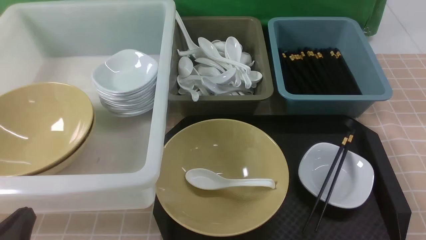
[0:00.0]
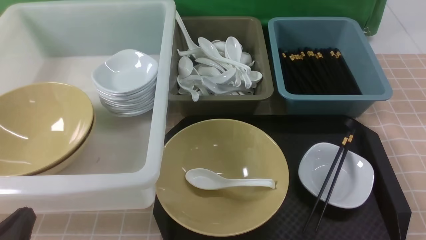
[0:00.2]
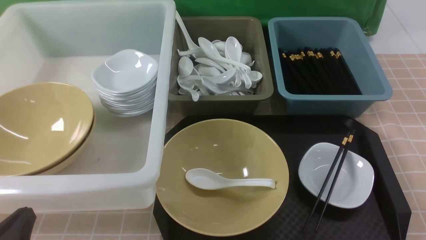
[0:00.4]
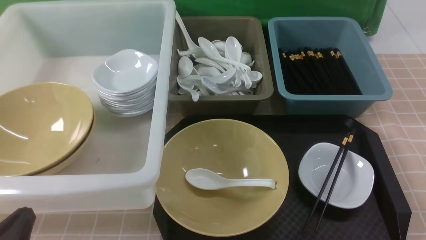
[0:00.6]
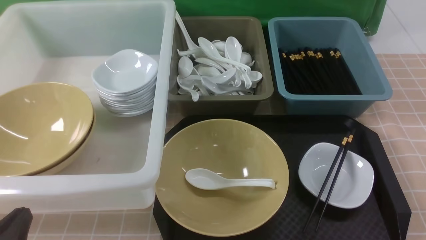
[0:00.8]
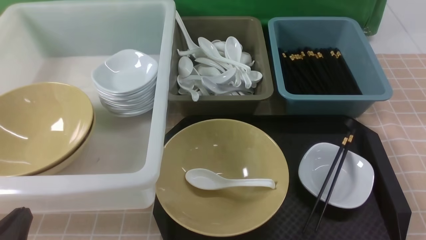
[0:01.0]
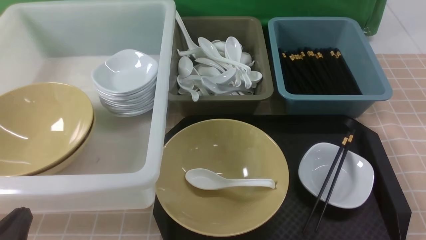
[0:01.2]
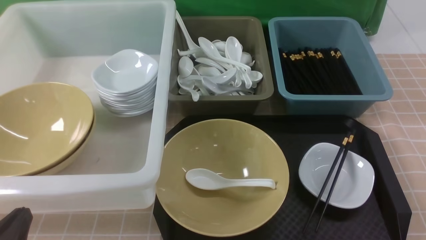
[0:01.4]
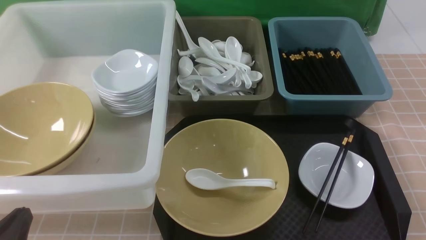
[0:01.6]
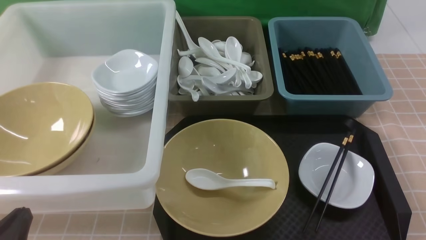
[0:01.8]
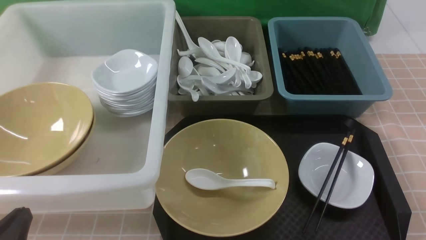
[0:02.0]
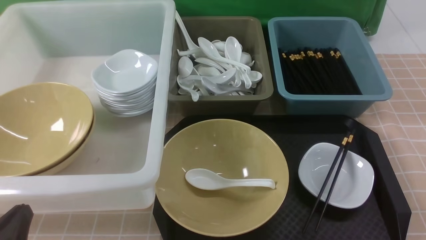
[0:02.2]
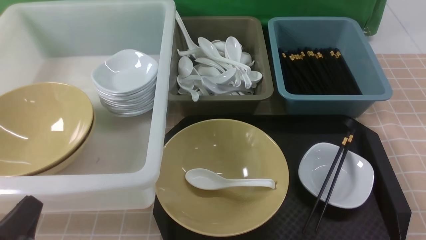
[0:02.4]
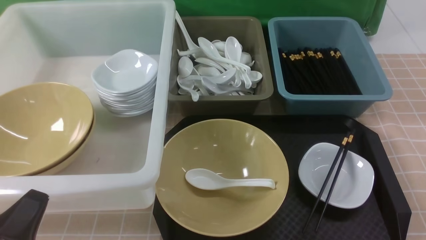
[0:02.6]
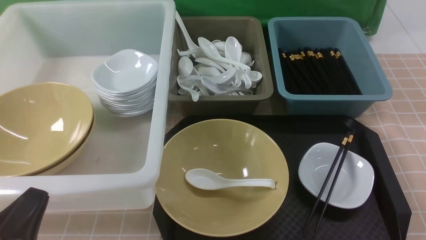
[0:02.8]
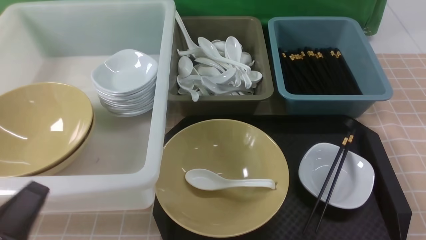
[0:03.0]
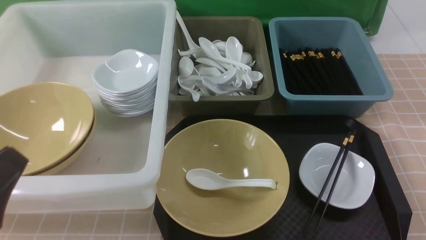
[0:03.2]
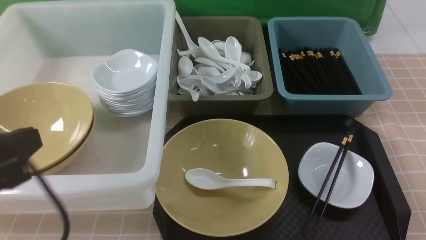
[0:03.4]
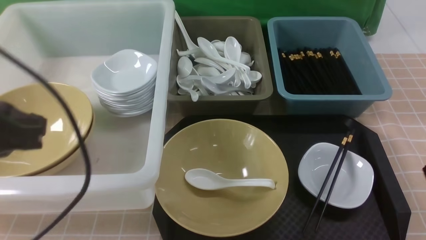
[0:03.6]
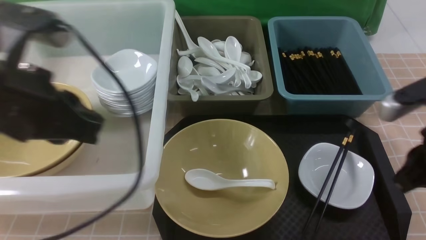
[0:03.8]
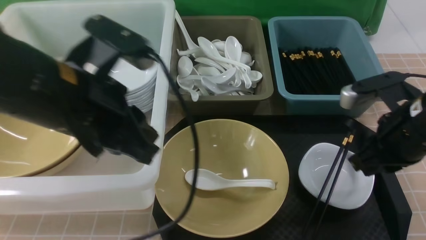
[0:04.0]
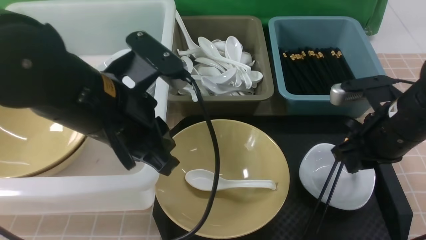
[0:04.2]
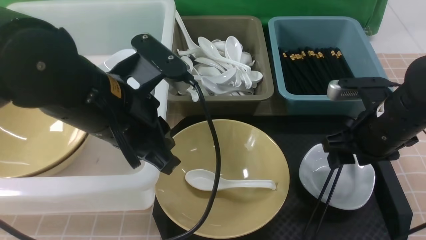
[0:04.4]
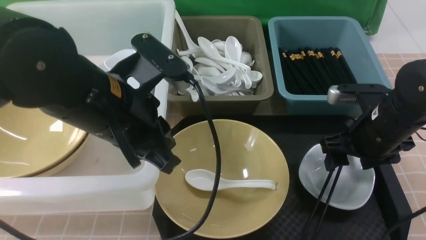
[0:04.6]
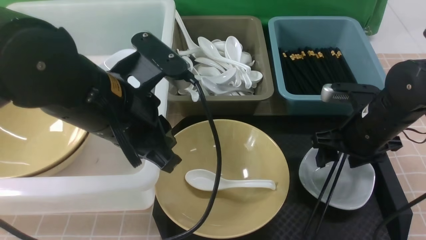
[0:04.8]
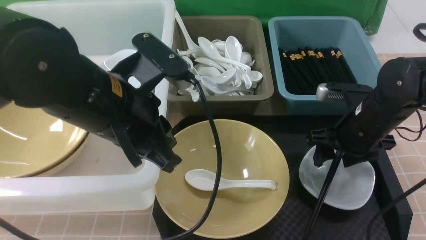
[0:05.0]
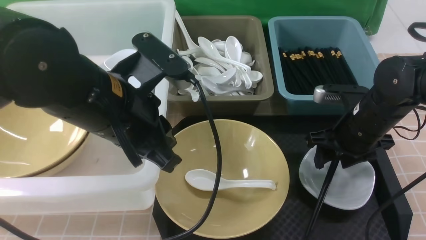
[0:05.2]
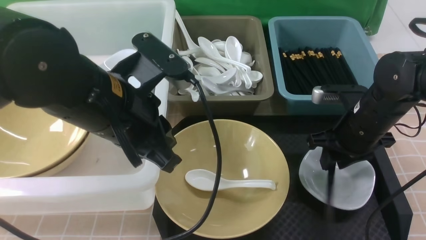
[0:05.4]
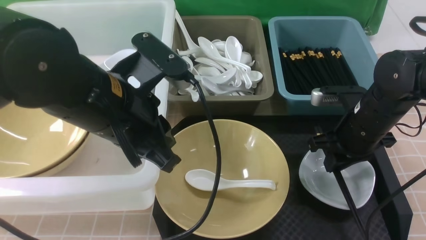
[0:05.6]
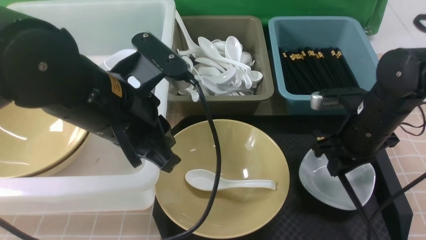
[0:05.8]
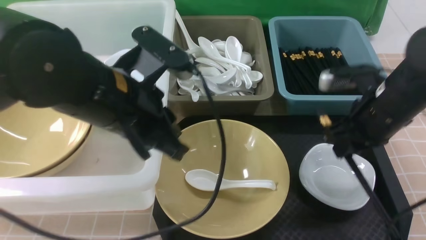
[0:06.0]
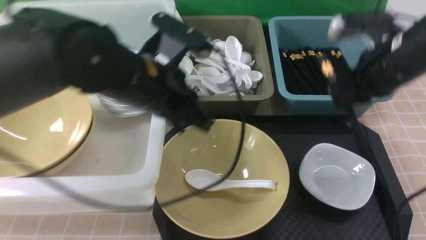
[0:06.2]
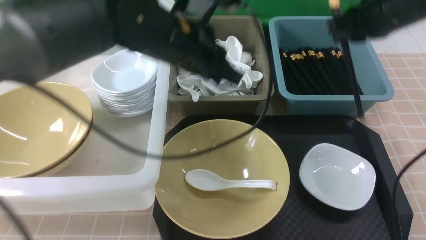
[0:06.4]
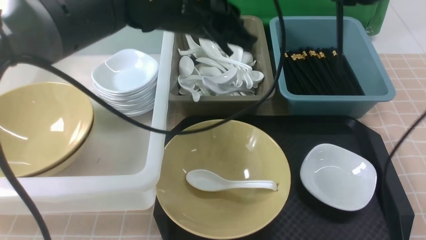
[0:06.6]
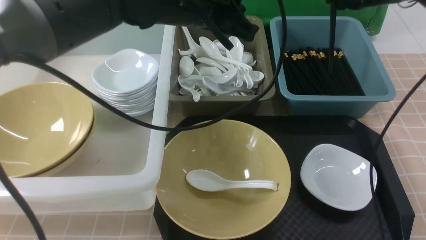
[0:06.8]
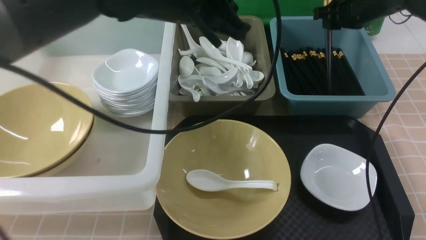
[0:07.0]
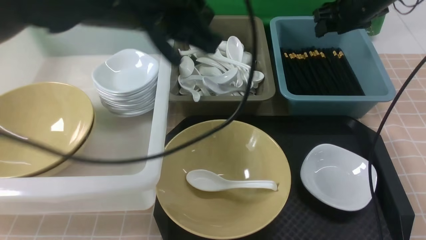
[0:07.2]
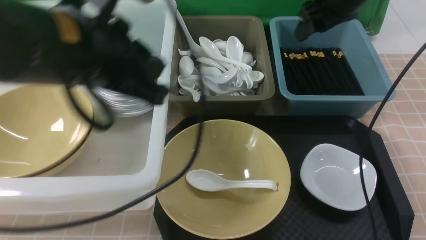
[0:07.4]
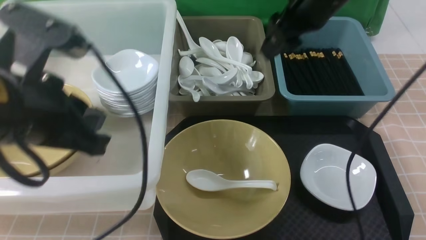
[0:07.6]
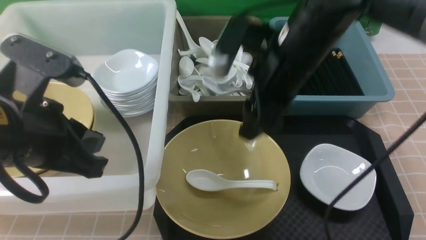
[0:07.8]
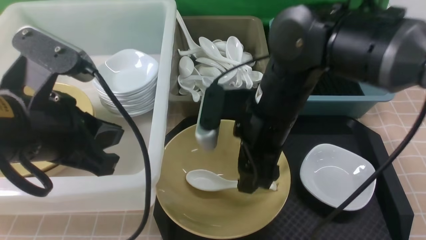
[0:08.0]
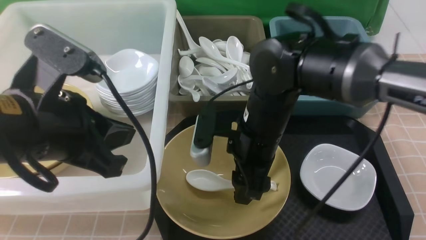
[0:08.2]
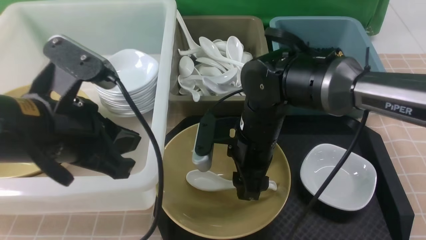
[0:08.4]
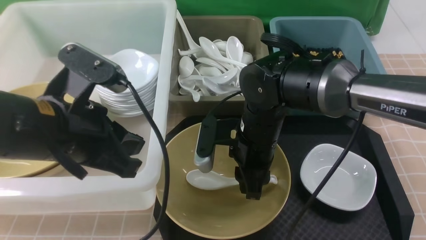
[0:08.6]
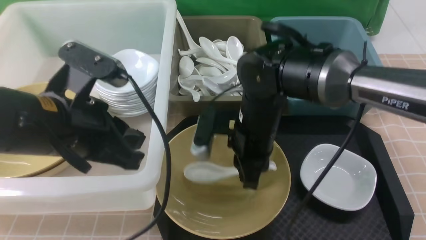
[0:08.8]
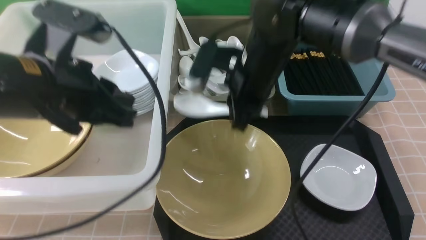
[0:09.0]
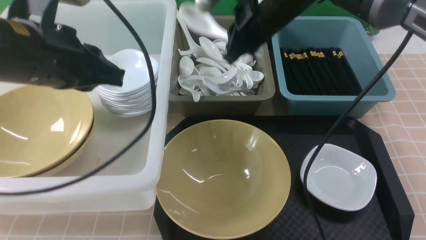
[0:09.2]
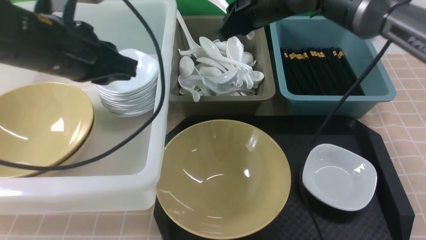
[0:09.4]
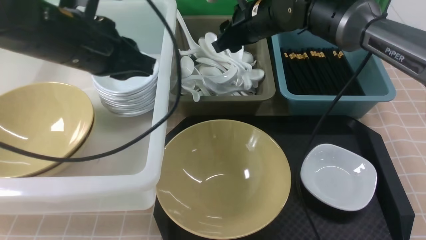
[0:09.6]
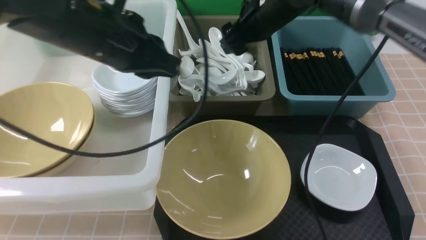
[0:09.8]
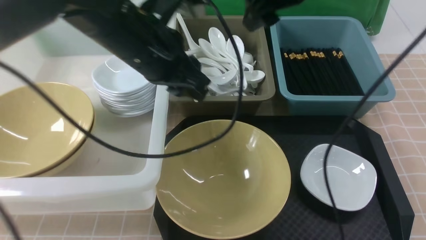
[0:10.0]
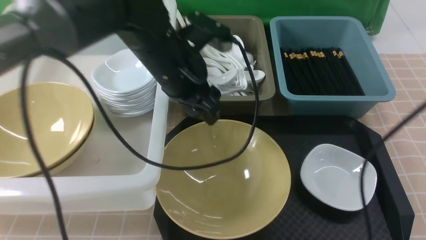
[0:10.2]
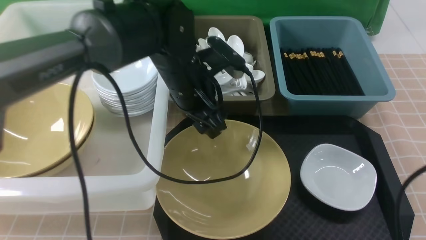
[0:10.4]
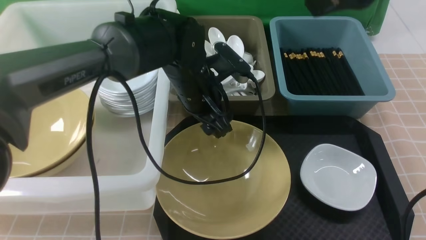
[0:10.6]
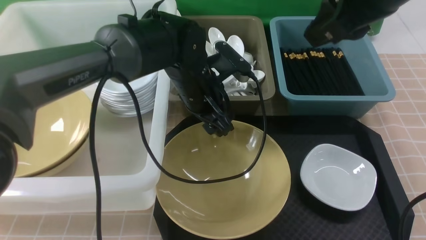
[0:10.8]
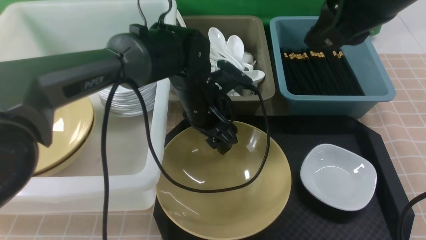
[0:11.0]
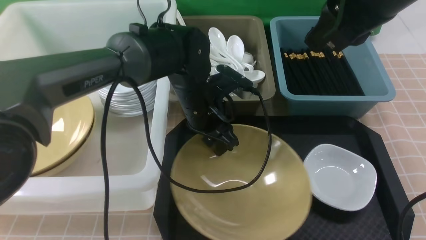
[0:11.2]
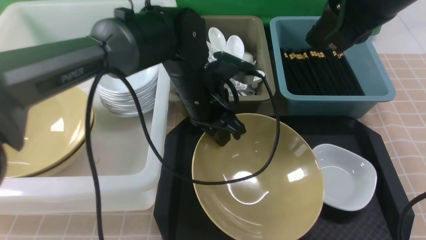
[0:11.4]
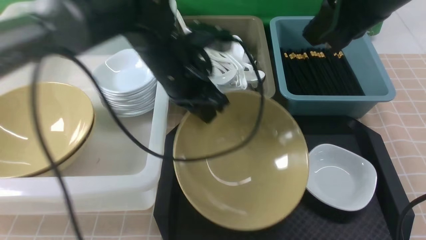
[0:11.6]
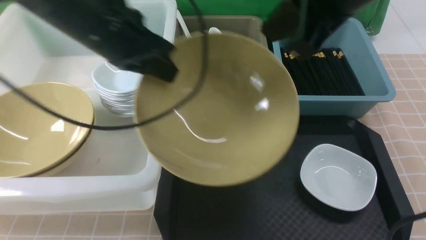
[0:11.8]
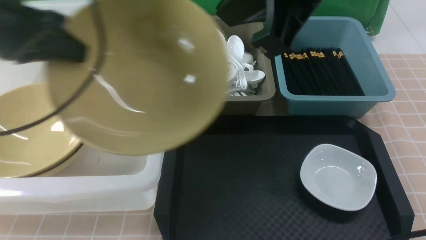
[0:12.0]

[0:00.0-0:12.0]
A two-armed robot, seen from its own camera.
Task of the whole recording: on brown table put chopsticks spoon bowls plates into blue grey white boxes.
Step, 0.0 to 6.2 s: use the right arm to grab the chopsticks.
Step, 6.4 to 7.4 s: use the right arm to put the chopsticks into the small storage box on the right.
Step, 7.6 to 8.8 s: use the right arm to grab the soup spoon in the middle.
Step, 9.0 to 9.8 s: use the right arm to put the soup spoon into the small storage box in the middle.
Step, 10.0 to 11.6 s: use the left arm to grab the yellow noodle bowl on the left.
0.0 to 1.6 s: Both grippers stay put.
1.6 to 3.0 s: The left gripper travels upward by approximately 5 cm.
3.0 to 4.4 s: The right gripper goes some 25 cm forward, and opens; the left gripper is displaced forward, to the right and upward by approximately 20 cm.
4.4 to 6.0 s: The right gripper closes.
6.0 to 7.6 s: The left gripper heads to the left and backward, covering some 10 cm; the right gripper shifts about 15 cm to the left and upward, moves some 20 cm forward and comes back, and opens.
7.6 to 9.0 s: The right gripper travels to the left and downward by approximately 10 cm, and closes its fingers.
9.0 to 10.4 s: The left gripper is displaced to the right, forward and downward by some 20 cm, and opens up. The right gripper moves upward and to the right, approximately 20 cm, and opens.
10.4 to 12.0 s: The left gripper goes about 25 cm to the left and upward, and closes. The right gripper heads to the left and backward, covering about 10 cm, and closes up.

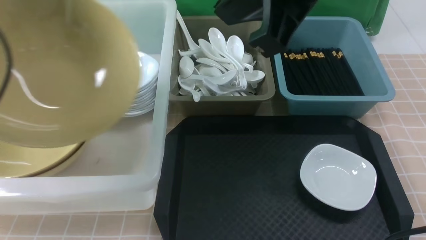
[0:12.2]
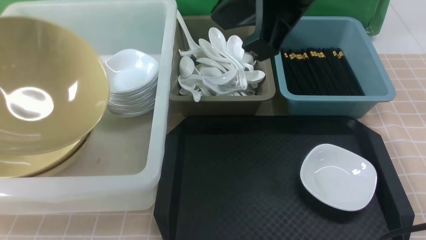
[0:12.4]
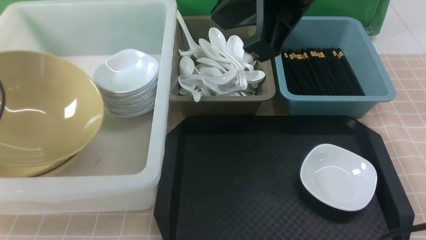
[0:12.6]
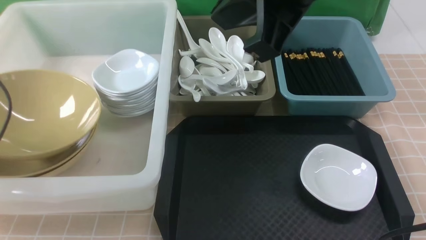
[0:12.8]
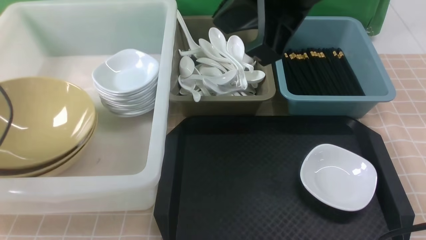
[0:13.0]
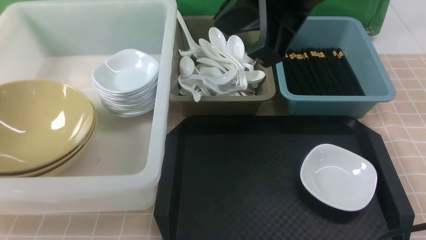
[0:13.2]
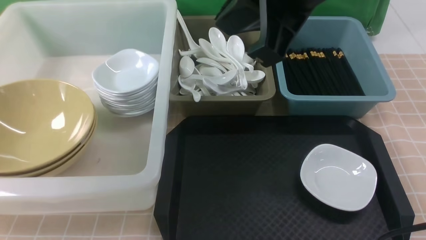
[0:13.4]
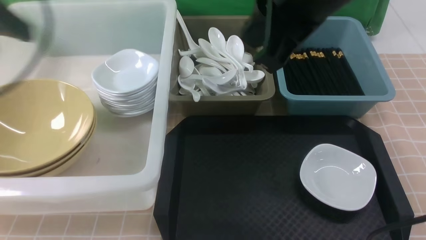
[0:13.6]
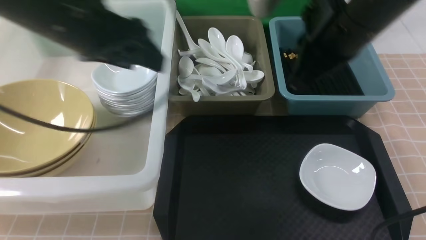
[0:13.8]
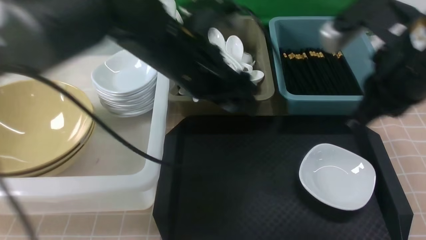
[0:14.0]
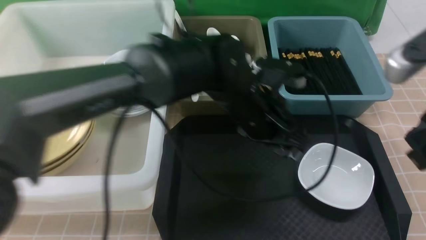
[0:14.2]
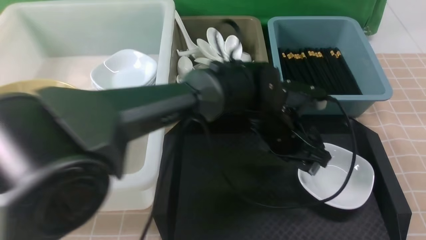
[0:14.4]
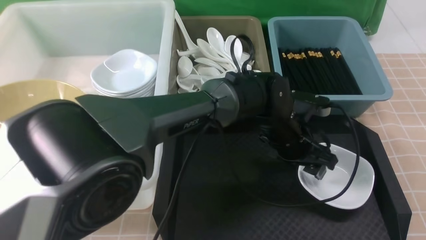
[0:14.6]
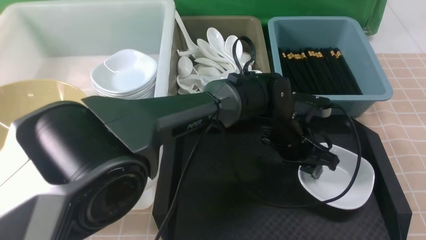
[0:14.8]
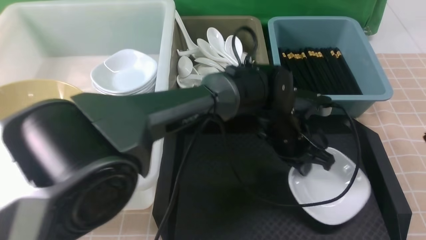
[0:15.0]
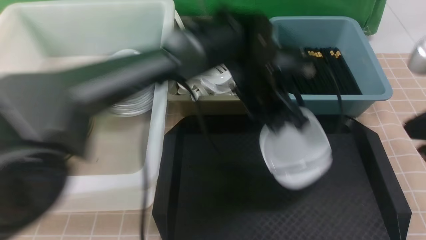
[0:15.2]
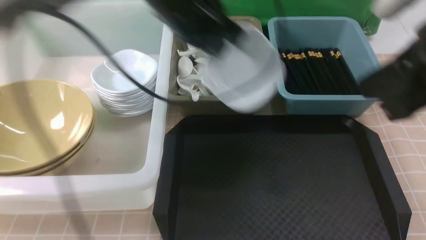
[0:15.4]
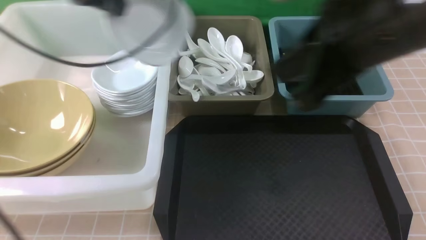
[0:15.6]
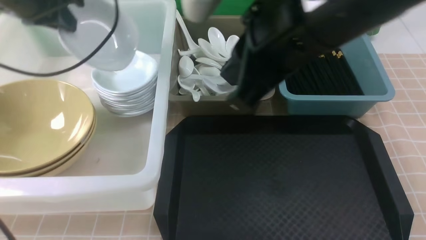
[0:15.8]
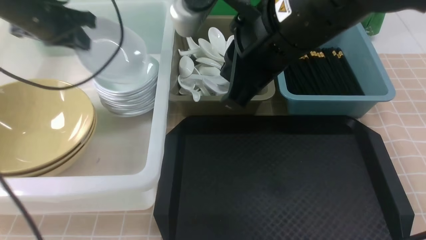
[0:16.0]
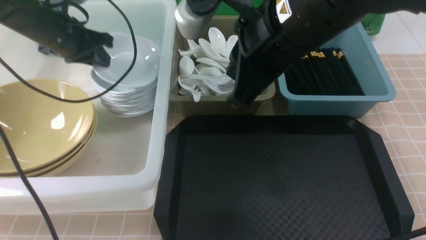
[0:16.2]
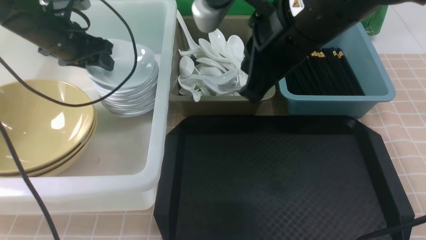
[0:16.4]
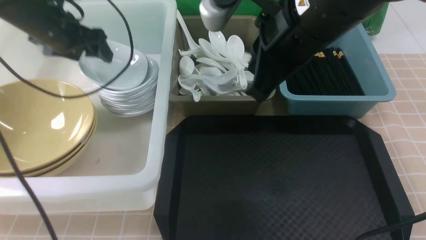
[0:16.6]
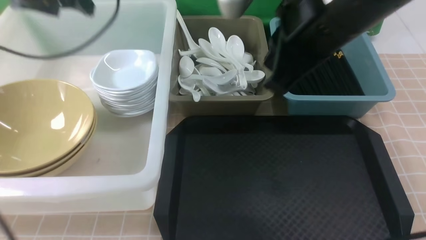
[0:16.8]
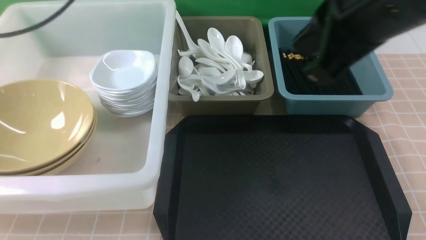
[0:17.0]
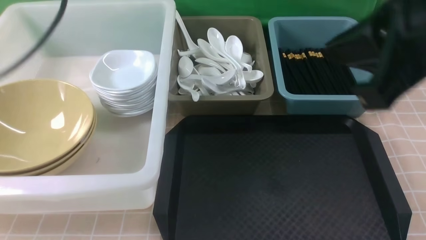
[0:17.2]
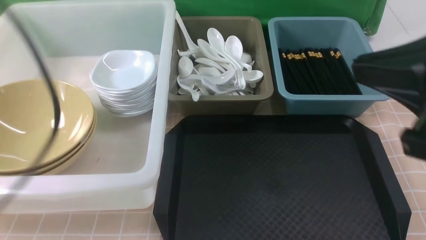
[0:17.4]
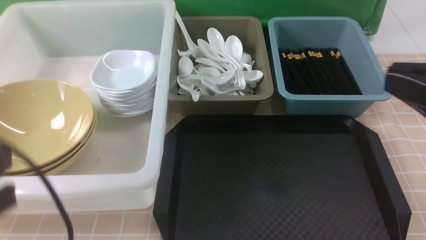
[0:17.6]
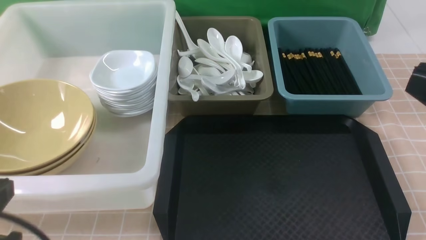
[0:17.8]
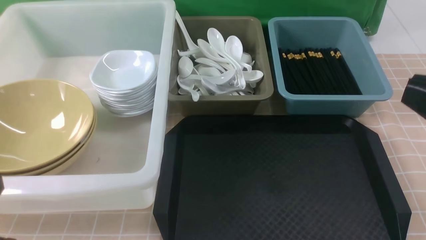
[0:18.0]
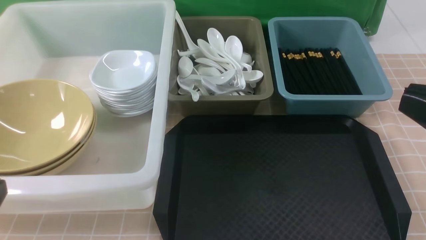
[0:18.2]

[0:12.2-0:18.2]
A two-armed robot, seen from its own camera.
Task of the whole recording: on brown table put chopsticks spoon bowls plates into blue grey white boxes.
Step, 12.2 to 13.2 s: use the left arm to put the noodle bowl into the large storage box on the left.
Step, 13.4 to 15.0 s: use the left arm to grab the plate.
Step, 15.4 to 16.8 s: use the left arm to put the plate into the large storage box on the left.
12.2 to 13.8 s: The left gripper shifts approximately 20 cm to the right and forward, and opens. The right gripper goes approximately 10 cm downward and to the right.
13.8 to 15.2 s: The left gripper shifts about 20 cm to the right and downward, and closes its fingers. Meanwhile the right gripper travels backward and to the right by roughly 10 cm.
15.2 to 16.6 s: The left gripper shifts some 30 cm to the left, and opens up. The right gripper is displaced to the left and forward by approximately 15 cm.
16.6 to 18.2 s: The left gripper heads backward, covering about 35 cm, and closes up. The right gripper heads backward and to the right, covering roughly 20 cm.
